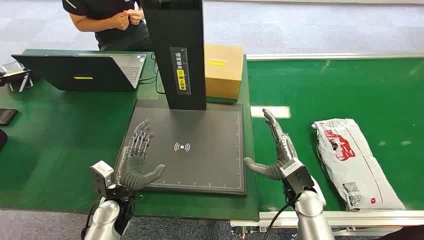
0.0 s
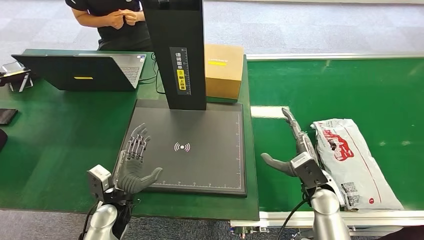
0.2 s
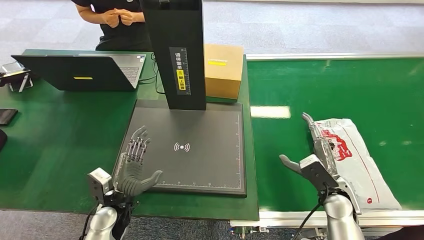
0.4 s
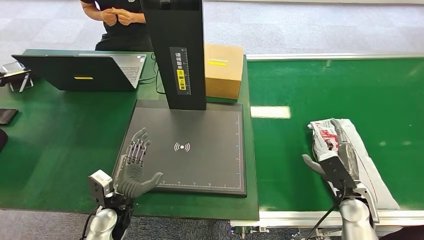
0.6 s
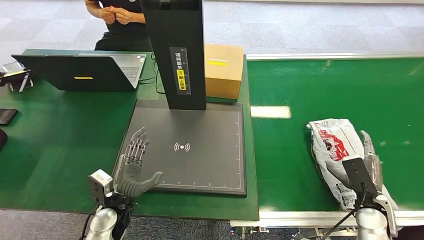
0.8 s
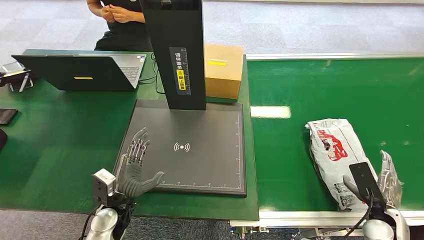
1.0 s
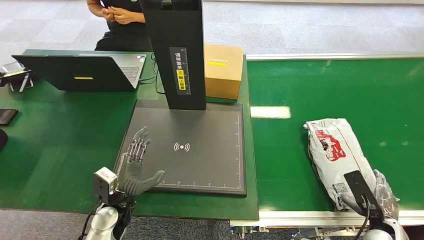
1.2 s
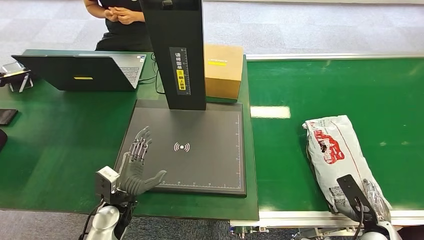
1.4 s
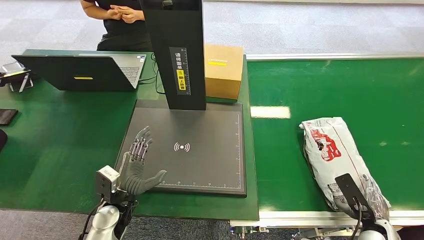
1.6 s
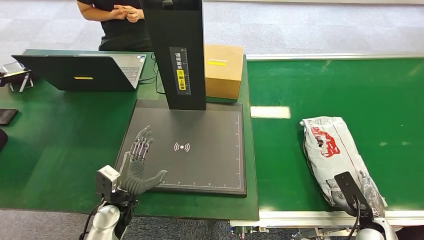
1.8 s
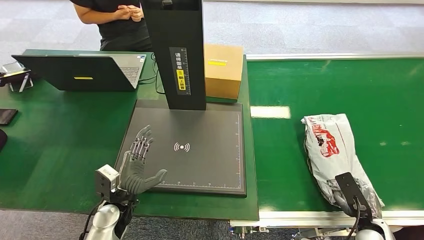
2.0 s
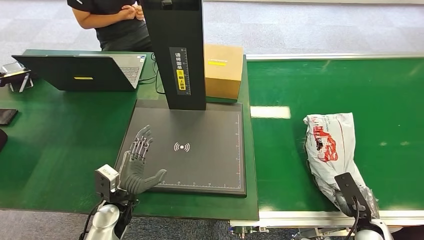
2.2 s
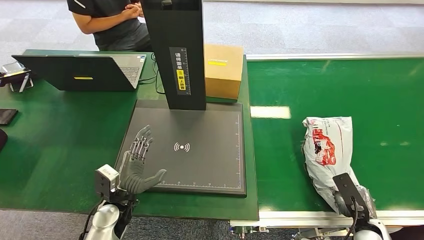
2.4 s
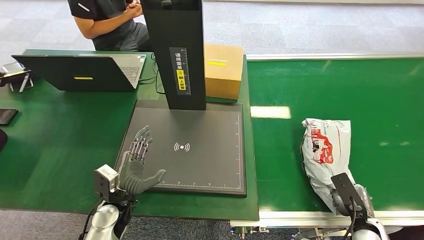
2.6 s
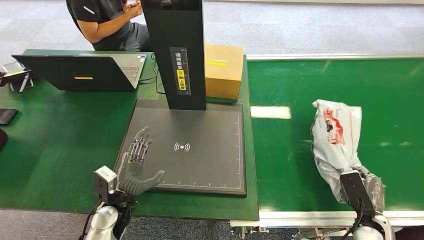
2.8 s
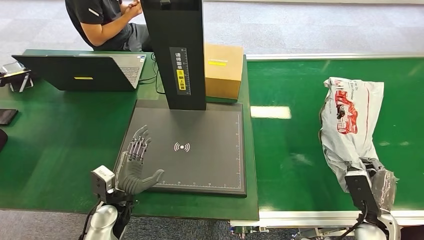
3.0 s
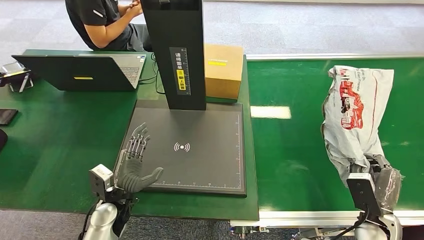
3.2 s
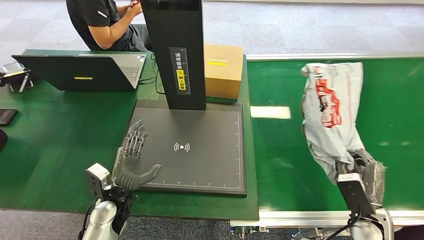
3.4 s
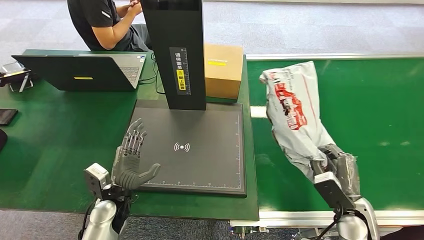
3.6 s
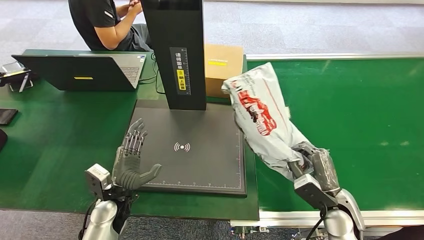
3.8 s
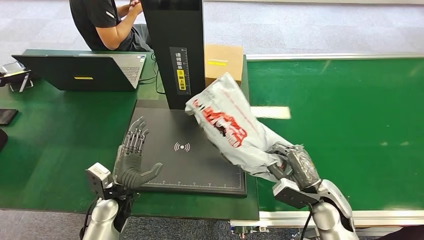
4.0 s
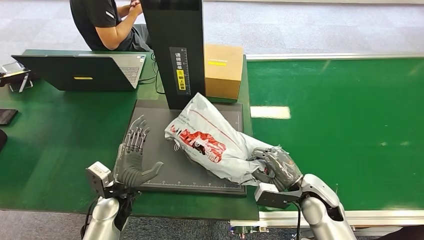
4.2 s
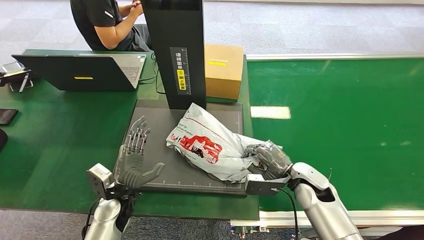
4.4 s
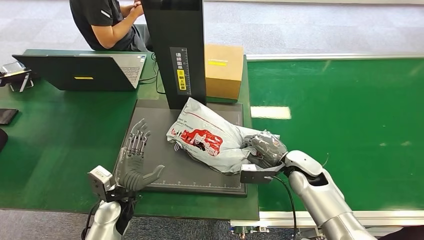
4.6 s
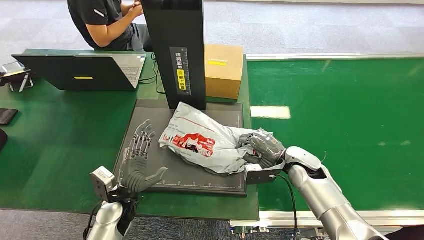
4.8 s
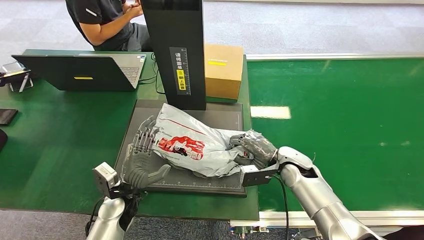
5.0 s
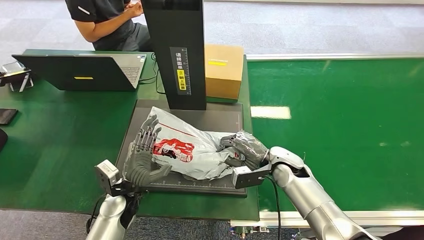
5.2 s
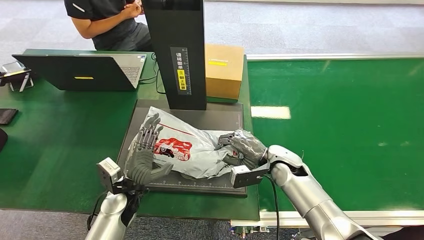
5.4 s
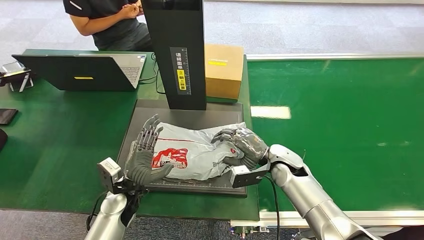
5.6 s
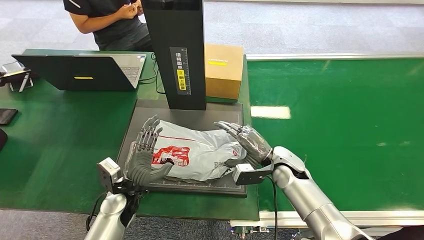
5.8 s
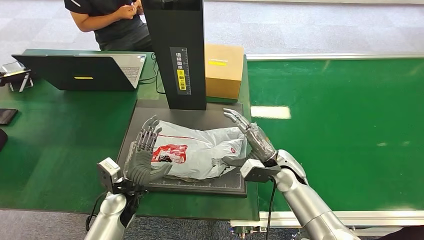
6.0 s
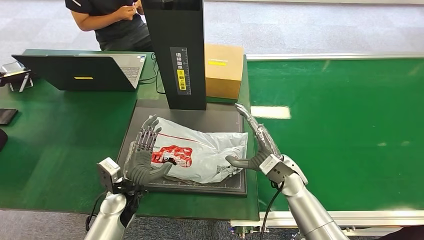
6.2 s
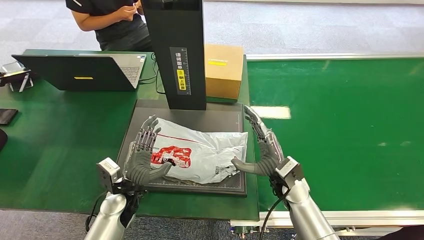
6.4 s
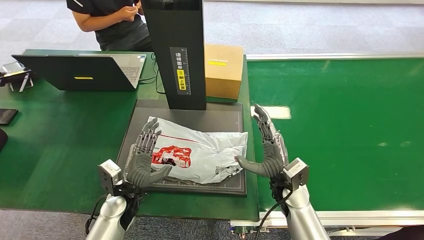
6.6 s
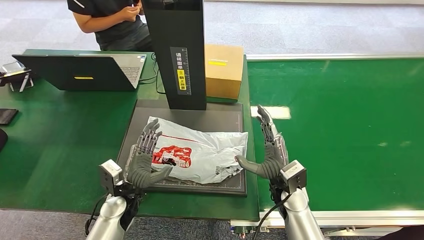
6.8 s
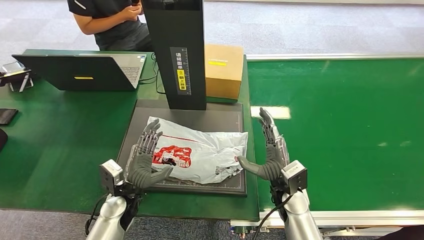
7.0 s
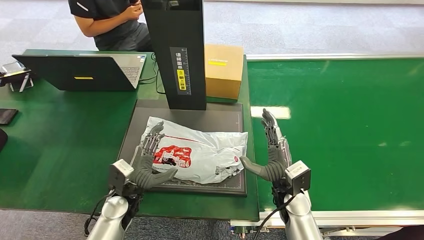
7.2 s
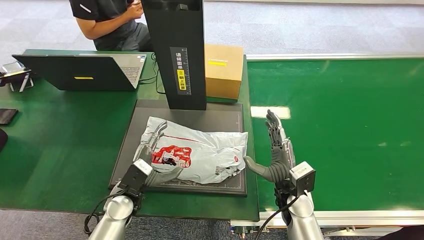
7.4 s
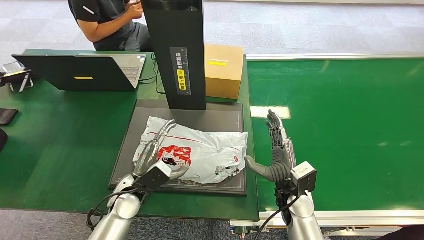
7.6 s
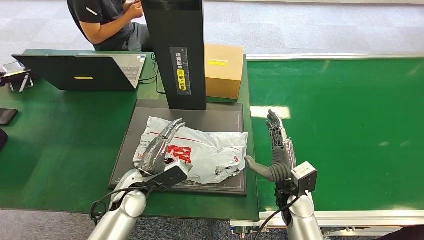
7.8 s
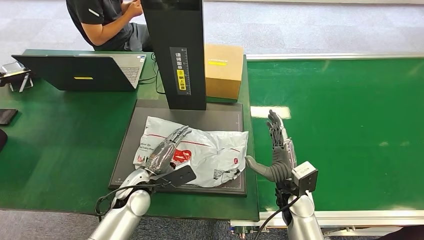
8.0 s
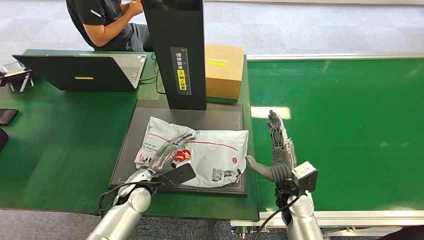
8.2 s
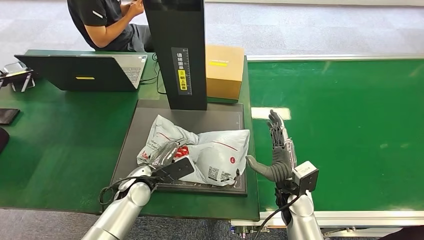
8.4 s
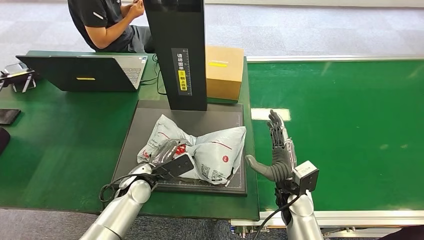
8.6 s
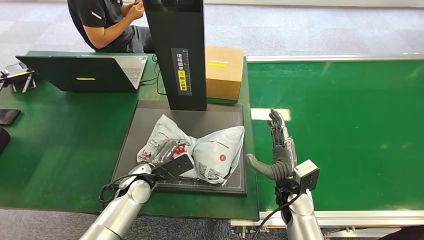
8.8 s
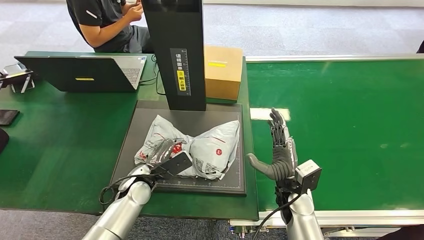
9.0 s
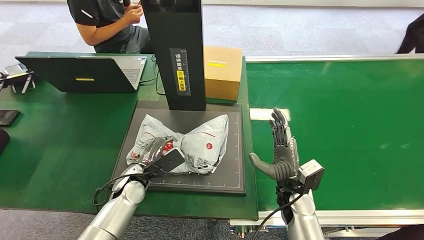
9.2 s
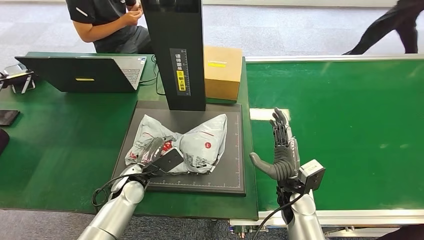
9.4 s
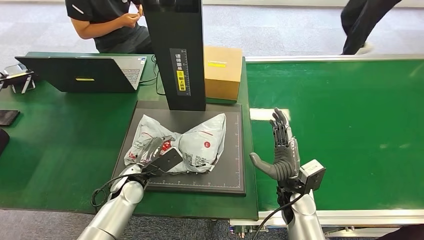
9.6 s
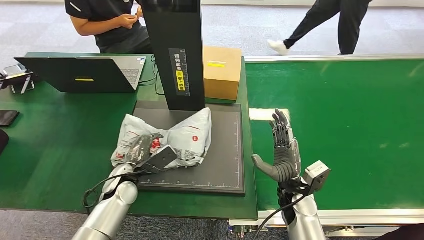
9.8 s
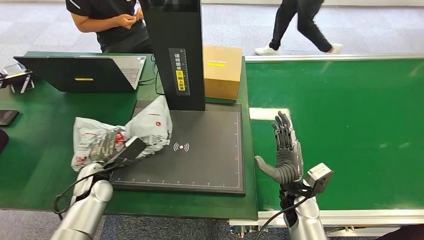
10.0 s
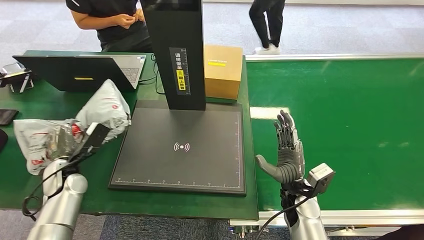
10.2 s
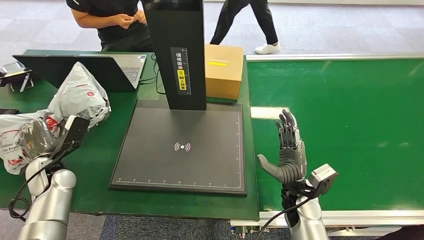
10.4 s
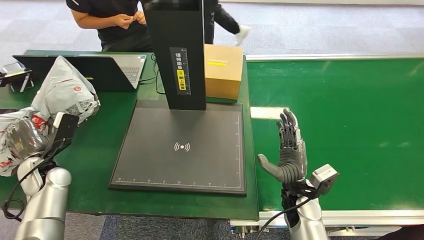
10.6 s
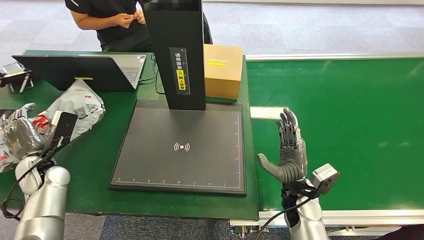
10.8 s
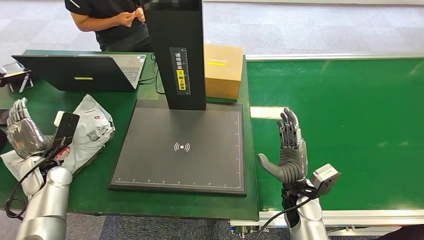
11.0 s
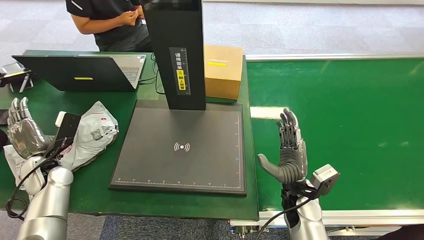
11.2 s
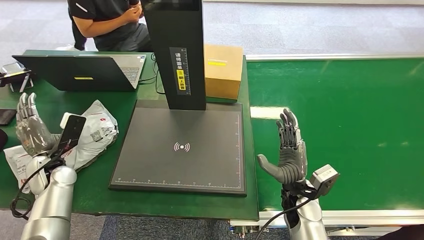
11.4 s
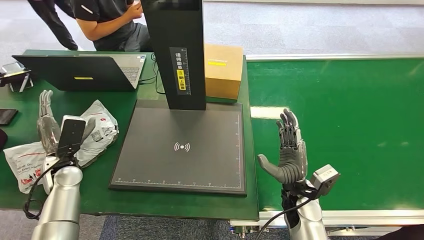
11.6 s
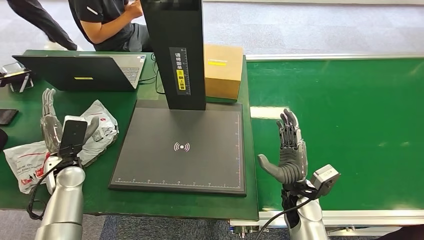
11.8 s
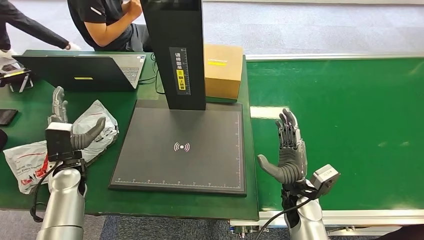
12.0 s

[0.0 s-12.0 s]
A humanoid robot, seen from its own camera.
Step, 0.0 to 3.2 s: Pick up the package from the conveyor belt.
Step, 3.6 to 7.0 s: Place the package onto the inbound machine.
Step, 7.6 to 10.6 s: Pick up the package from the inbound machine.
Step, 10.8 to 12.0 s: Place the package into the parcel locker.
4.4 to 6.0 s: The right hand is displaced to the left by some 5 cm.
6.0 to 7.6 s: The right hand shifts roughly 5 cm backward.
10.4 to 12.0 s: The left hand is displaced to the right by some 5 cm.
